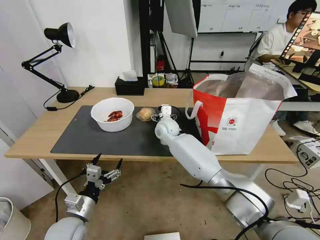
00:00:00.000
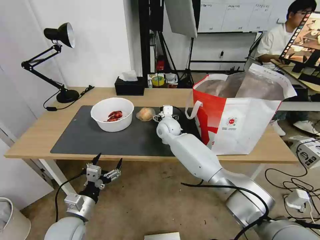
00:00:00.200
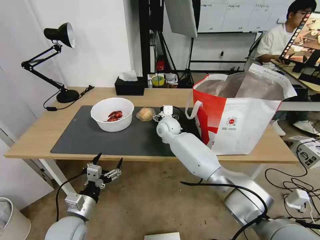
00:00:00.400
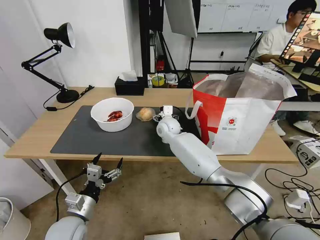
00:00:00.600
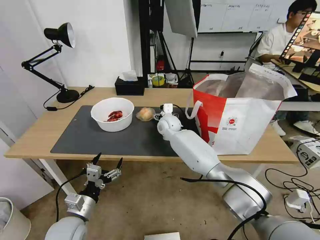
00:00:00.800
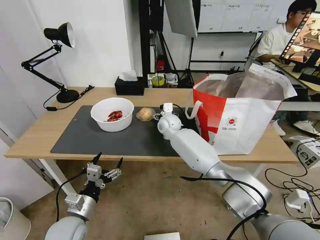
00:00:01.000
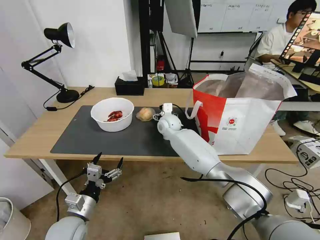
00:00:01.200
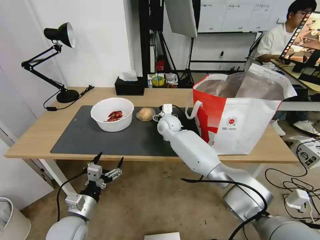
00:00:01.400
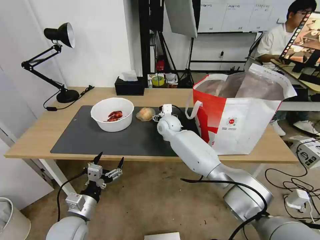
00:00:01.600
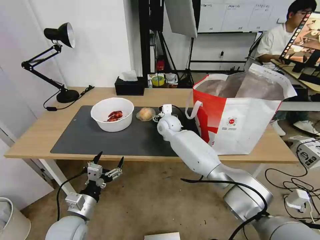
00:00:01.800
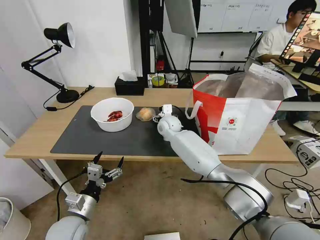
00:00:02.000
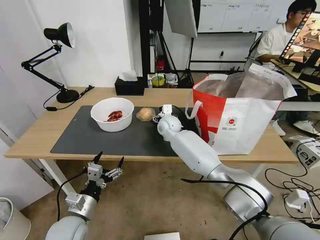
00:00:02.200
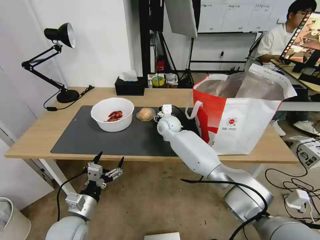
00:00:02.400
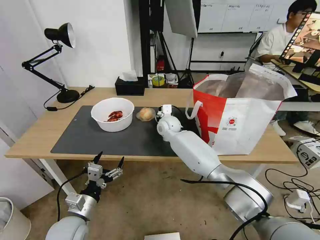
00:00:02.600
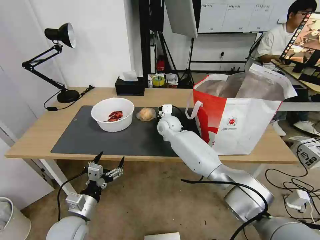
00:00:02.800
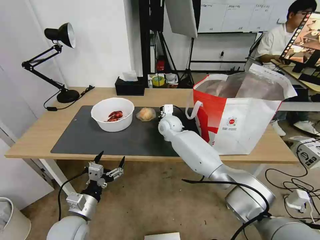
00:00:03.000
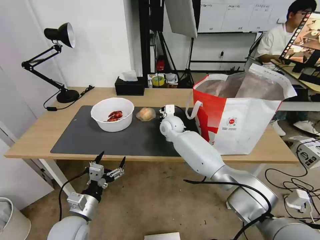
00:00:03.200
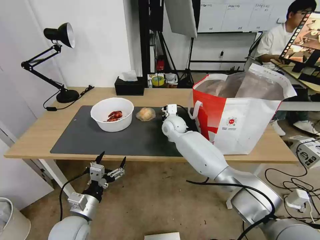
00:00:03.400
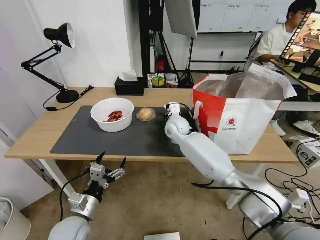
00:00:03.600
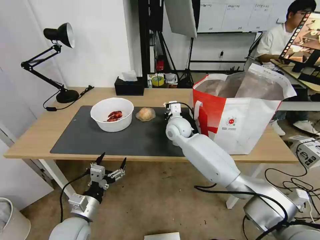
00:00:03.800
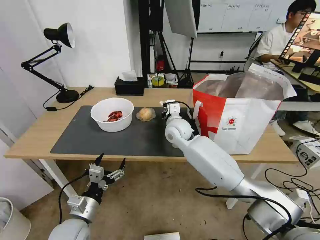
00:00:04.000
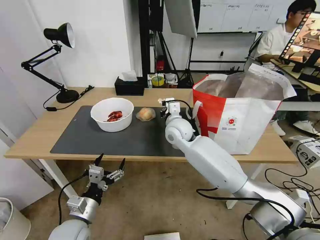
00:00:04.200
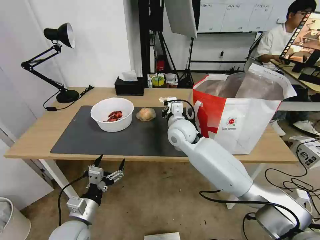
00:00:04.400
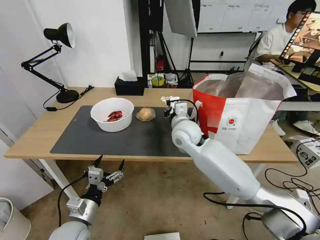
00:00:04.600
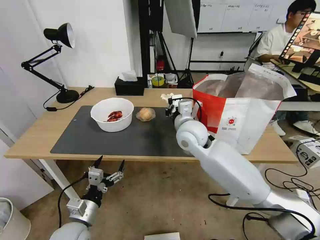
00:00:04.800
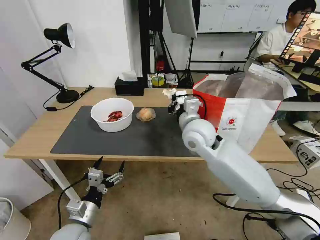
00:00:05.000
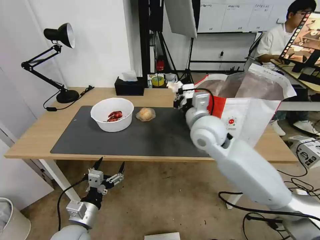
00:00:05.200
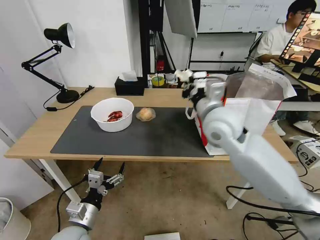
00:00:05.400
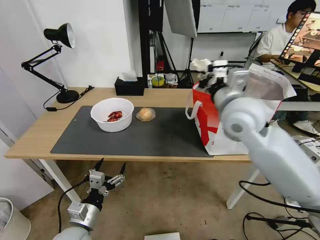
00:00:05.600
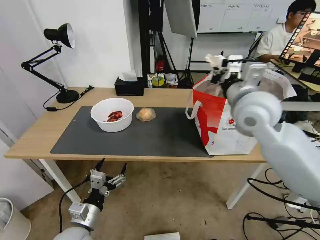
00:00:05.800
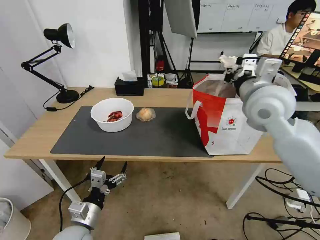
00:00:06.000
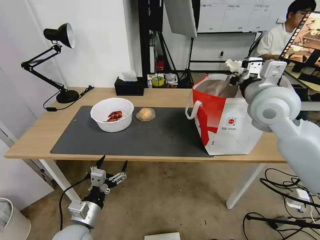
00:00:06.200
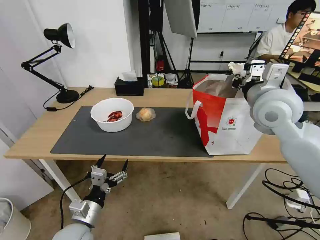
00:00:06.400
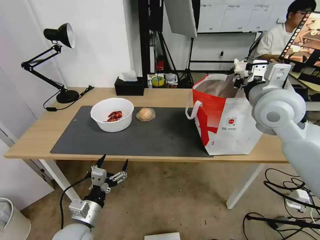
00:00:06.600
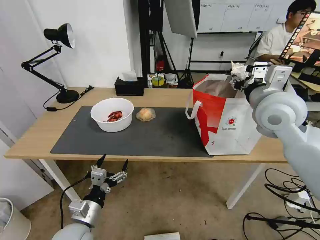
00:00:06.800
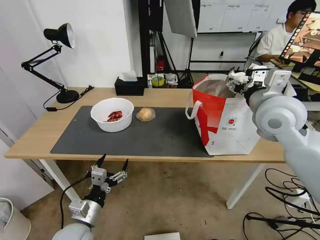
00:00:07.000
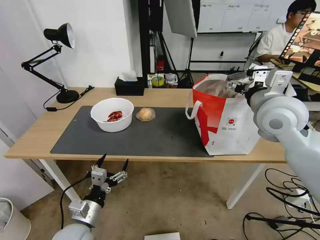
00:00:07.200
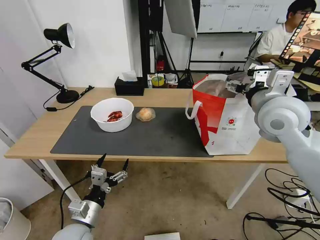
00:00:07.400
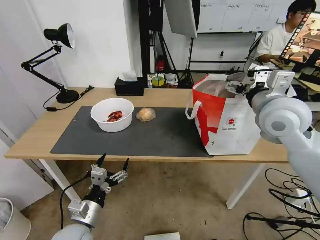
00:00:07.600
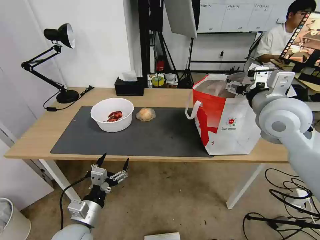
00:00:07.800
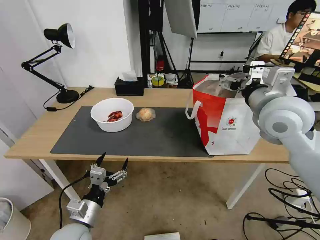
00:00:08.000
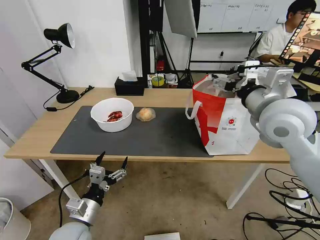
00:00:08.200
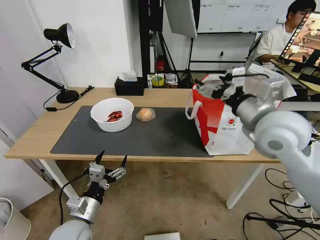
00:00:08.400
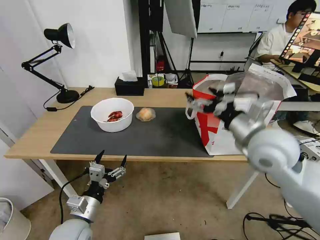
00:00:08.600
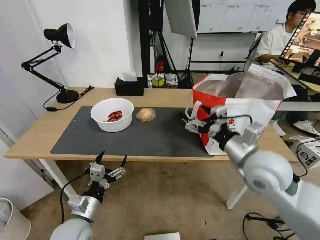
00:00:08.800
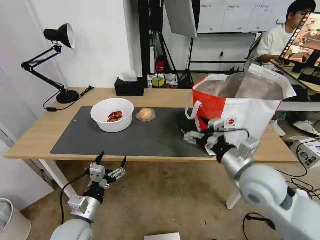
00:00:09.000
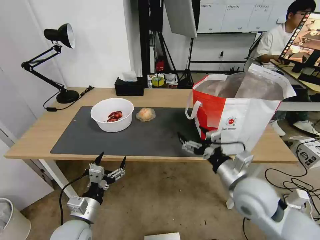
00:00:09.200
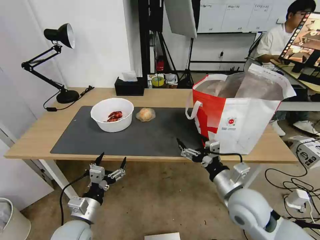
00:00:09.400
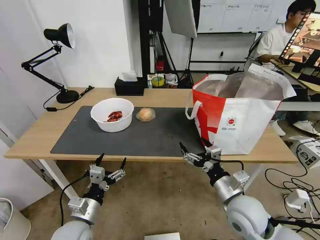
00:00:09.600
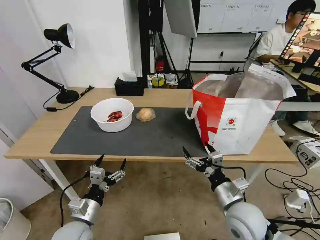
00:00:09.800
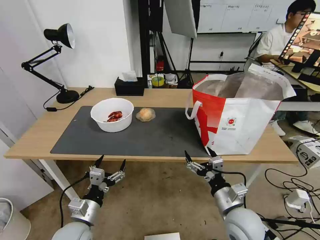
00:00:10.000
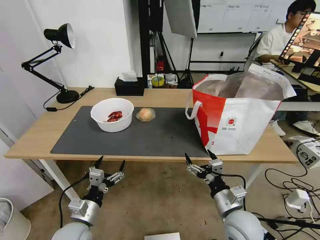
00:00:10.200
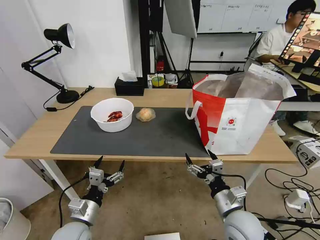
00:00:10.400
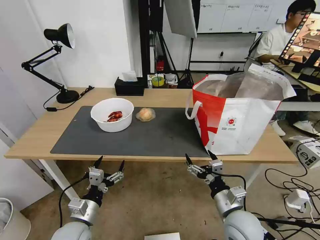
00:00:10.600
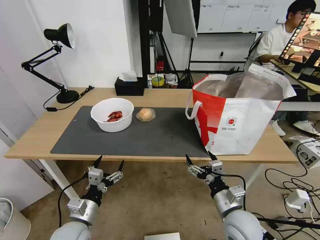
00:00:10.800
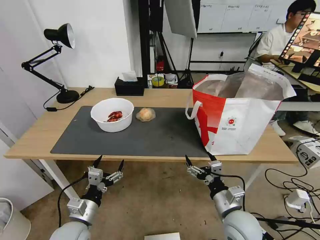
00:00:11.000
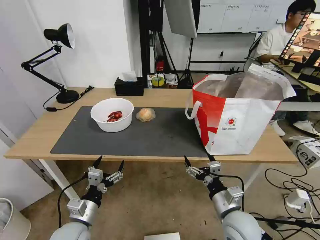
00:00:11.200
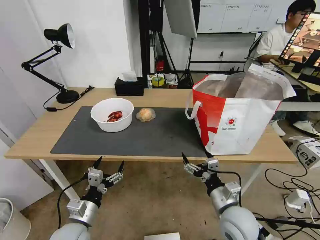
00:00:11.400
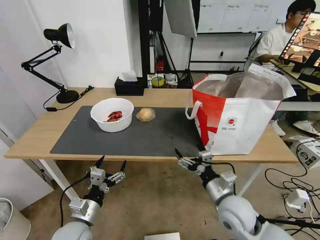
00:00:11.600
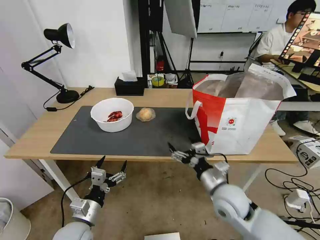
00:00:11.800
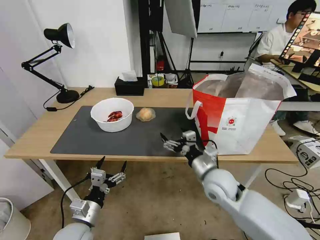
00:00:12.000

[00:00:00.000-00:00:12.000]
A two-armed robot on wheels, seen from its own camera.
Task of the whole recording: Pick up the trash from the table and place it into the takeout bag.
00:00:00.000 to 00:00:01.600: The grippers stay close to where they were, moving slightly.
00:00:01.600 to 00:00:03.000: The right gripper closes.
00:00:03.000 to 00:00:04.400: The right gripper is displaced backward and upward by some 10 cm.
00:00:04.400 to 00:00:06.000: The right gripper goes approximately 25 cm to the right and upward.
00:00:06.000 to 00:00:07.600: The right gripper opens.
00:00:07.600 to 00:00:09.000: The right gripper goes about 15 cm downward and backward.
00:00:09.000 to 00:00:10.400: The right gripper heads downward and backward, covering approximately 15 cm.
00:00:10.400 to 00:00:12.000: The right gripper heads forward, covering approximately 10 cm.

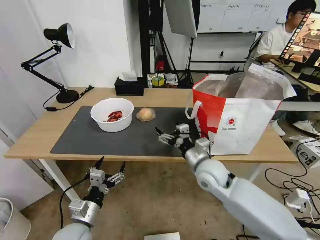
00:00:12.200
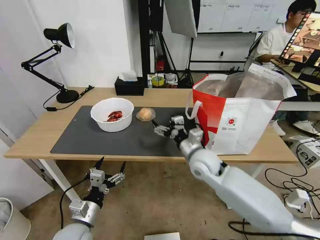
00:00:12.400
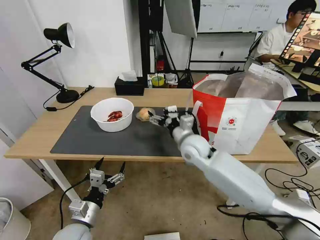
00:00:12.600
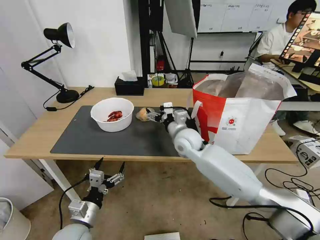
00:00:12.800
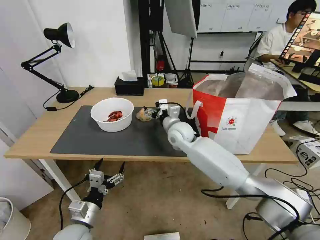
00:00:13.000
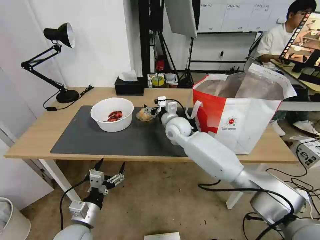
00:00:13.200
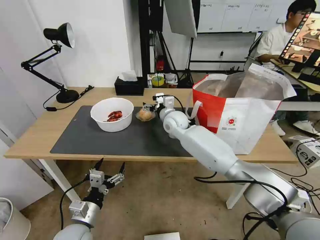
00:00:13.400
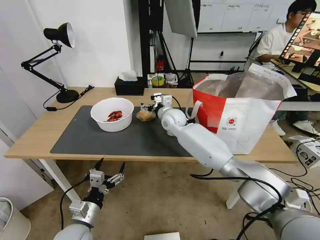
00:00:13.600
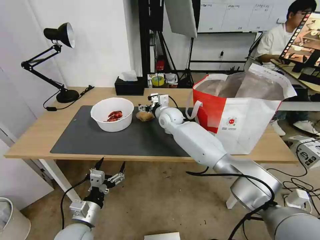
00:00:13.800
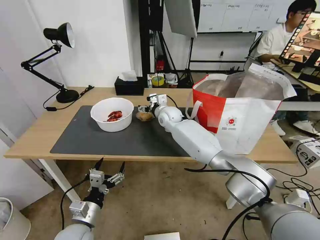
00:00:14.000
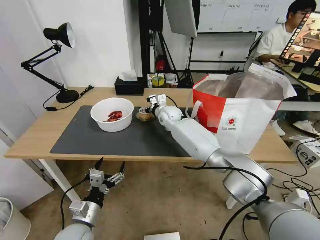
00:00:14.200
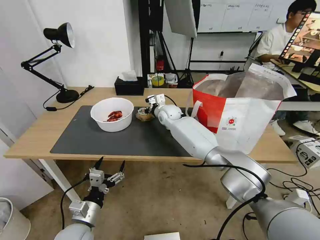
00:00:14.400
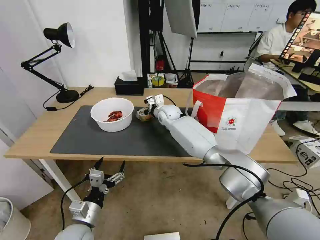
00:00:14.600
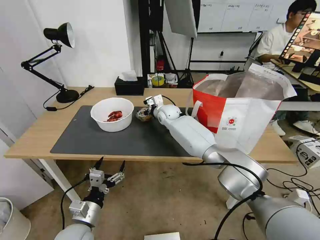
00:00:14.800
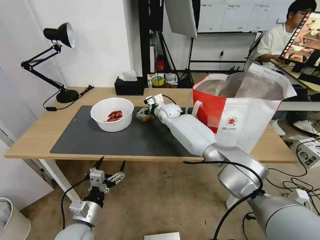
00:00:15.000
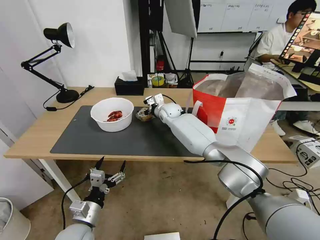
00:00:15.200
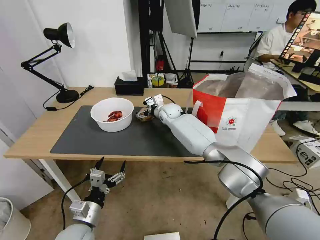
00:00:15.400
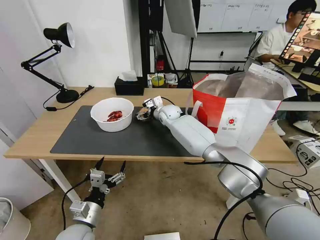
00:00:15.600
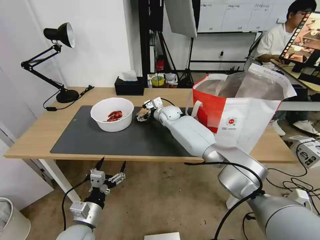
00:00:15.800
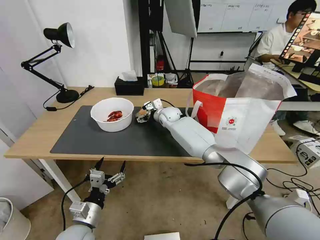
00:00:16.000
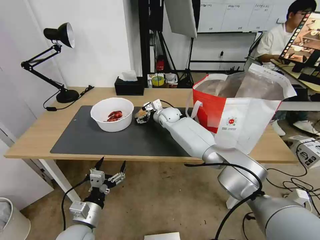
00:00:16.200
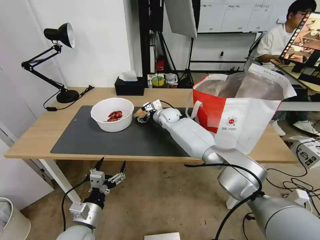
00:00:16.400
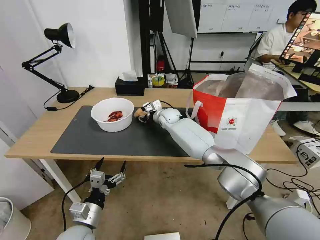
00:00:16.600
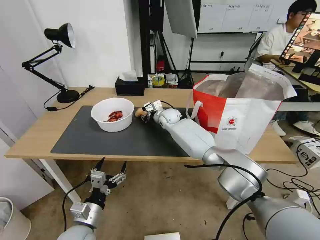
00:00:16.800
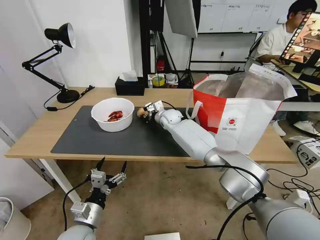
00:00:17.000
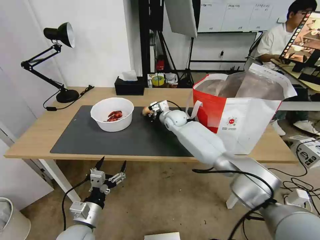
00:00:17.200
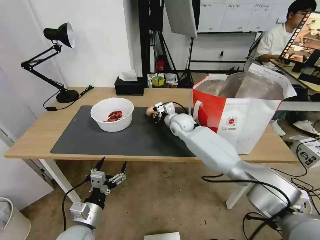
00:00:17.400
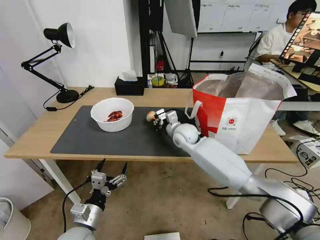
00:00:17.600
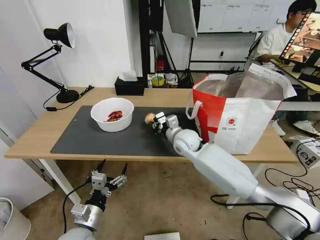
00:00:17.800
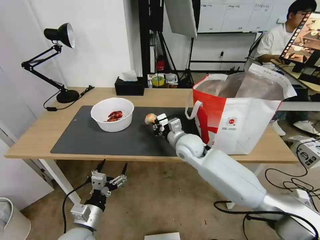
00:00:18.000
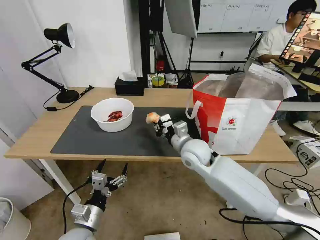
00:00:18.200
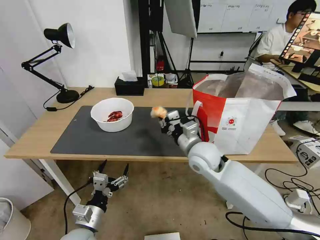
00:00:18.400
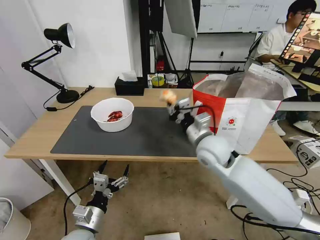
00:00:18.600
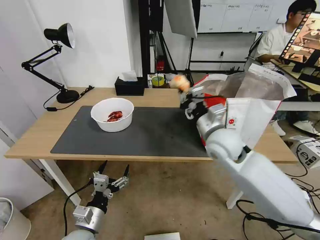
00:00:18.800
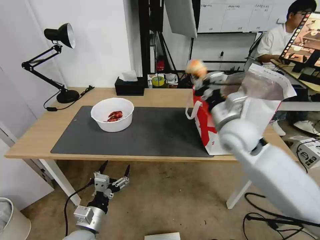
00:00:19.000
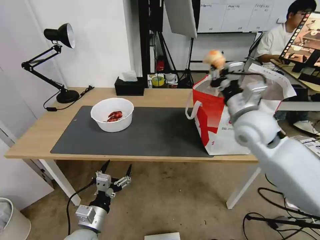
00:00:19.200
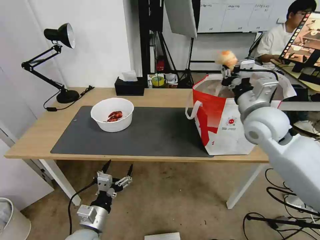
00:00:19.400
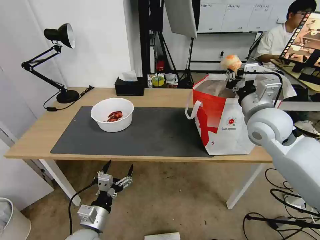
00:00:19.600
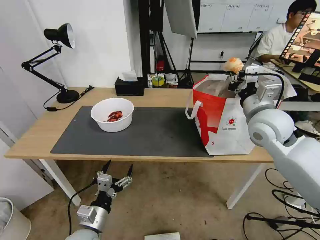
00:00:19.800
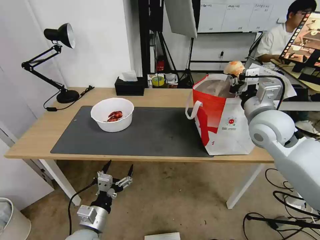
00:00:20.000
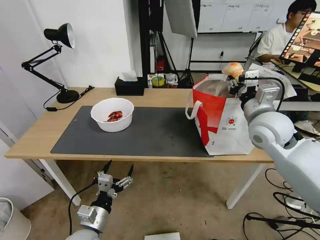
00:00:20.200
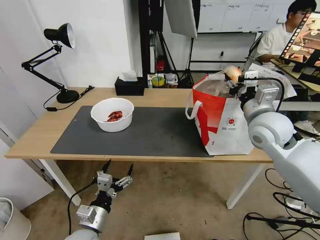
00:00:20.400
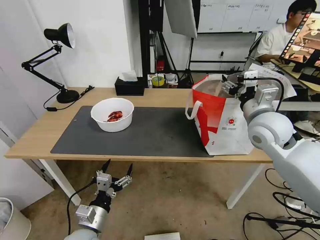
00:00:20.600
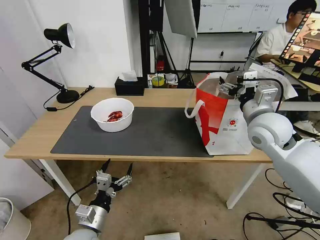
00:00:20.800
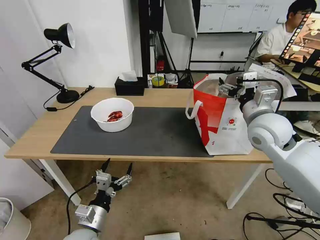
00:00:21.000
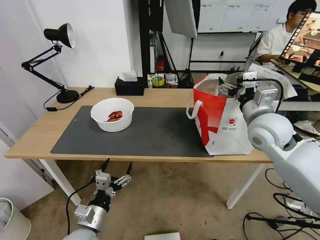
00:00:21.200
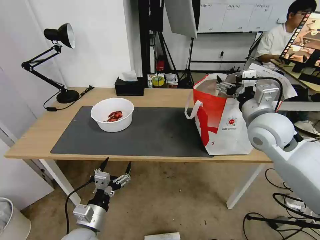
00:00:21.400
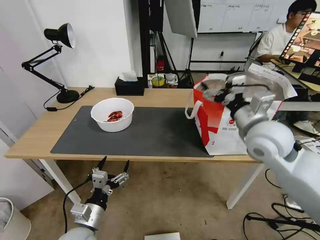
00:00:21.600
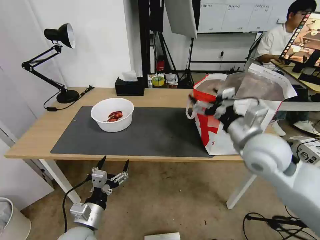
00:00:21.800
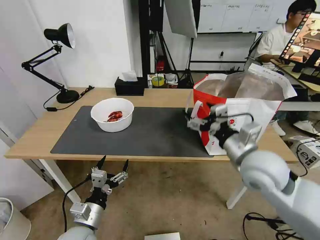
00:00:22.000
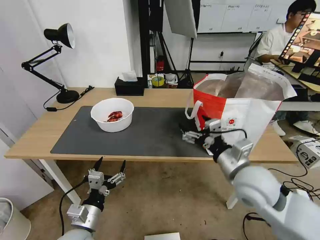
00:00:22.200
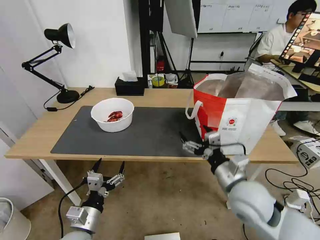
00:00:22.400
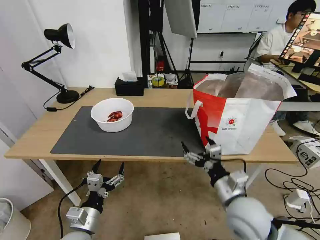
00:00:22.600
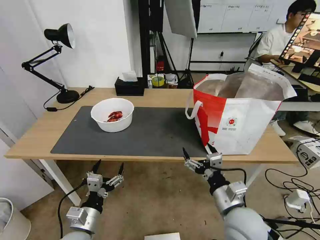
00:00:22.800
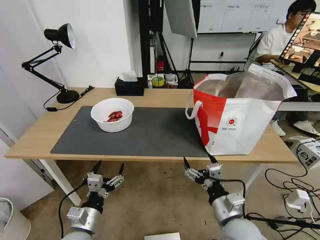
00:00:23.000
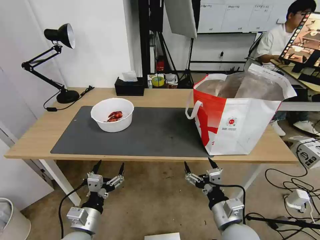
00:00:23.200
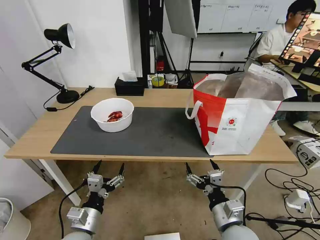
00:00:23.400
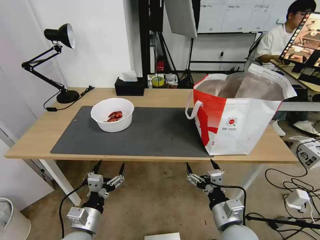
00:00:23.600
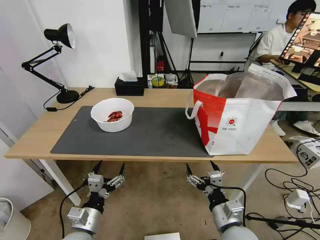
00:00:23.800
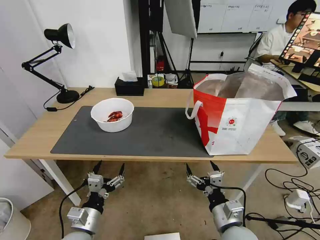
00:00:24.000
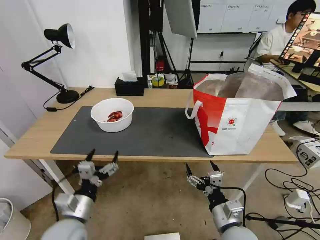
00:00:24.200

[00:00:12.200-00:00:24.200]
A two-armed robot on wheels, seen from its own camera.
Task of the whole recording: Pick up the trash from the table and place it into the takeout bag.
00:00:12.200 to 00:00:13.800: The right gripper is displaced forward and to the left by approximately 25 cm.
00:00:13.800 to 00:00:15.200: The right gripper moves roughly 5 cm.
00:00:15.200 to 00:00:16.600: The right gripper closes its fingers.
00:00:16.600 to 00:00:18.200: The right gripper heads backward, covering about 20 cm, and closes up.
00:00:18.200 to 00:00:19.800: The right gripper shifts approximately 20 cm to the right and upward.
00:00:19.800 to 00:00:21.200: The right gripper opens its fingers.
00:00:21.200 to 00:00:22.600: The right gripper shifts roughly 25 cm backward, downward and to the left.
00:00:22.600 to 00:00:24.200: The right gripper heads downward and backward, covering some 10 cm.
